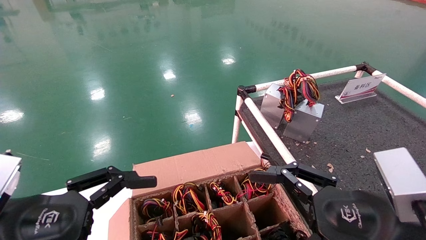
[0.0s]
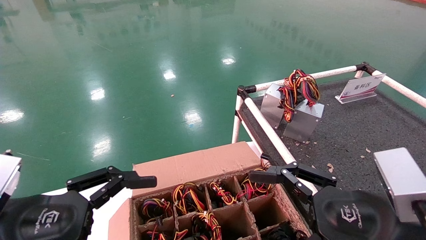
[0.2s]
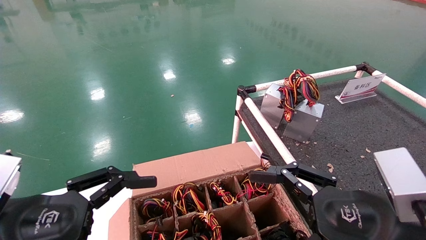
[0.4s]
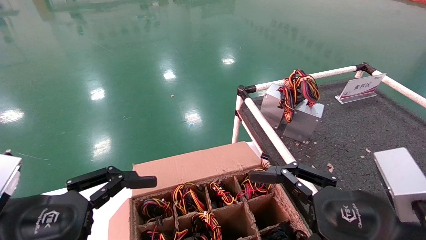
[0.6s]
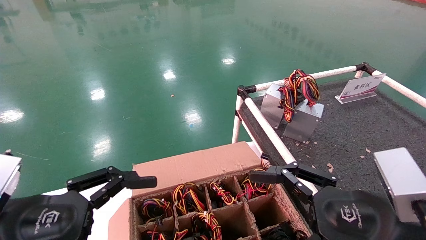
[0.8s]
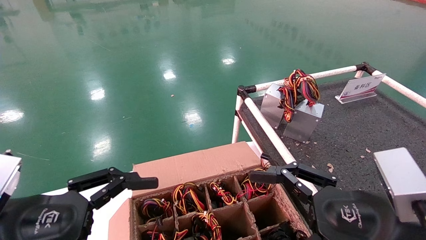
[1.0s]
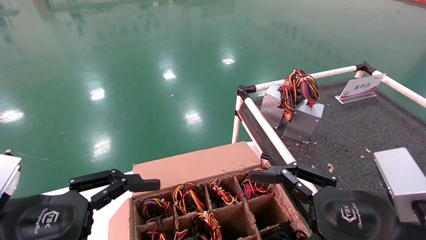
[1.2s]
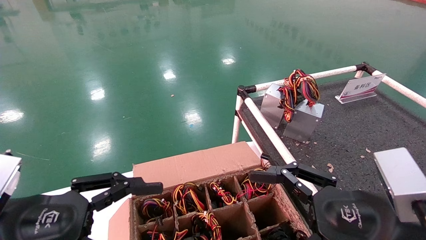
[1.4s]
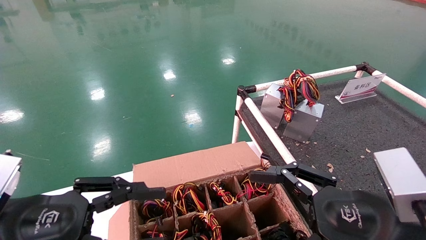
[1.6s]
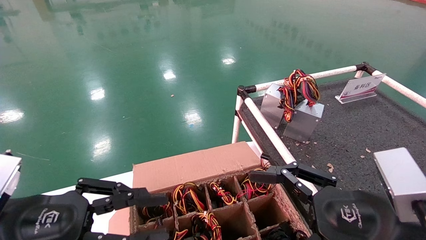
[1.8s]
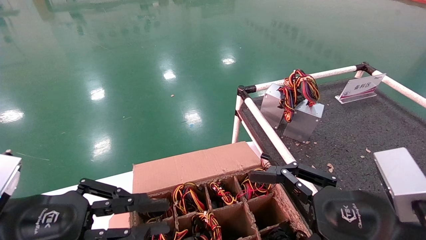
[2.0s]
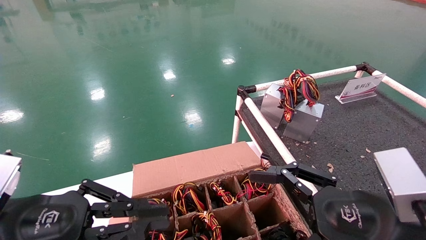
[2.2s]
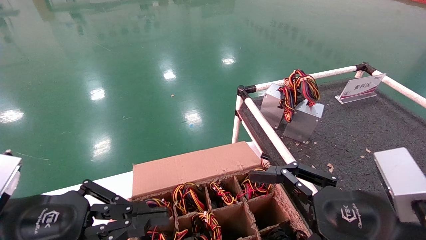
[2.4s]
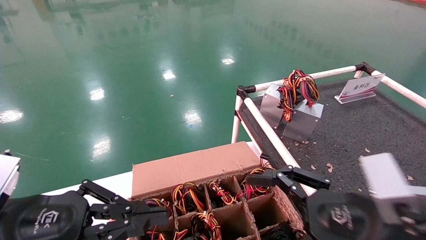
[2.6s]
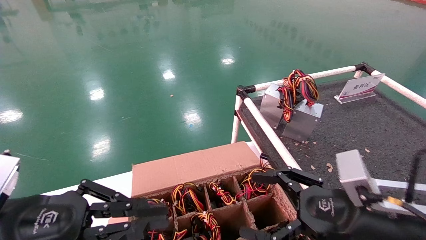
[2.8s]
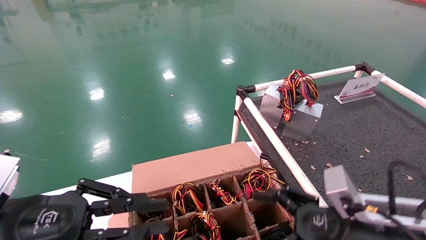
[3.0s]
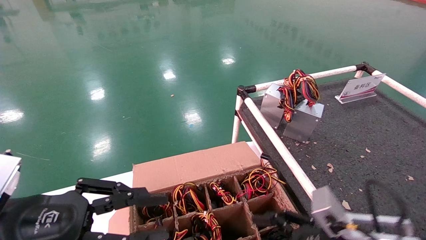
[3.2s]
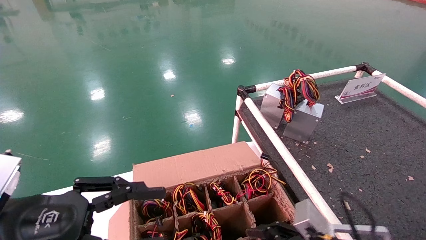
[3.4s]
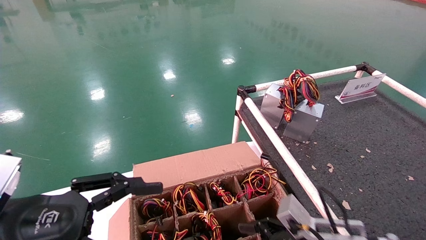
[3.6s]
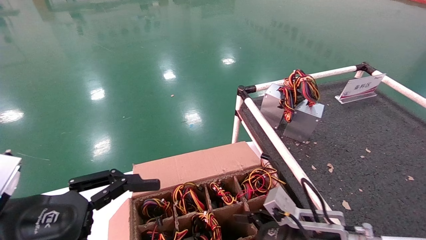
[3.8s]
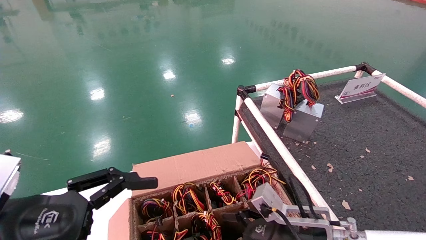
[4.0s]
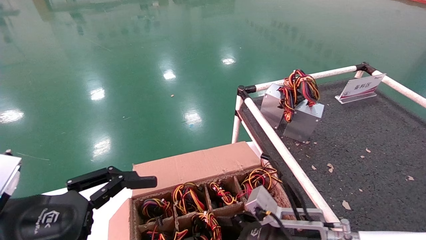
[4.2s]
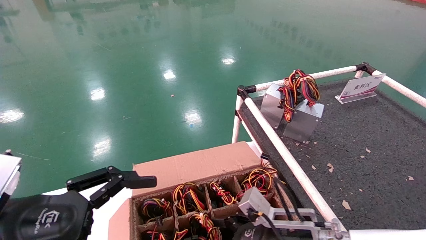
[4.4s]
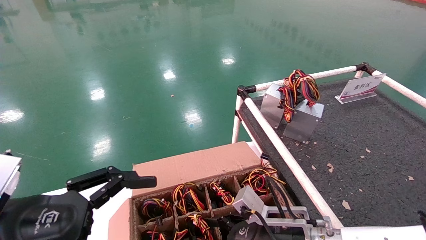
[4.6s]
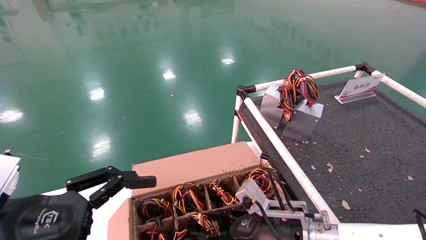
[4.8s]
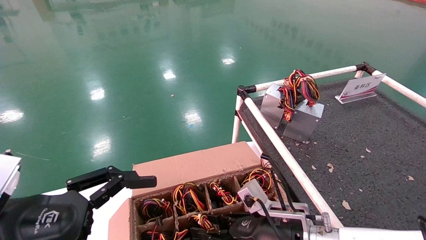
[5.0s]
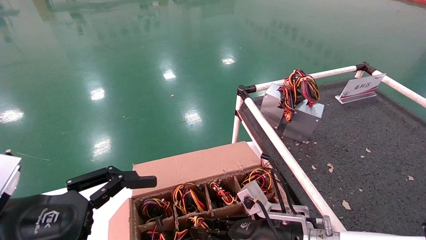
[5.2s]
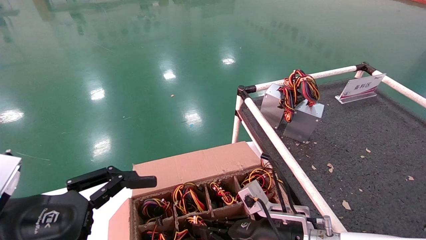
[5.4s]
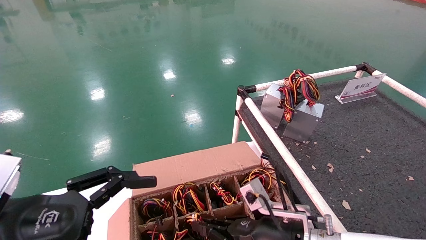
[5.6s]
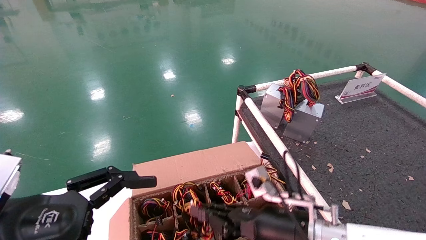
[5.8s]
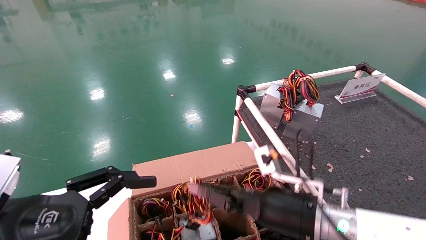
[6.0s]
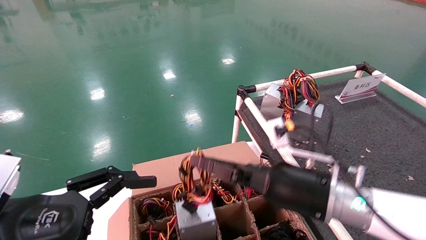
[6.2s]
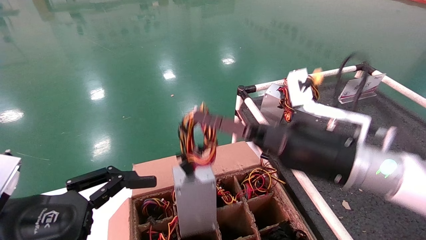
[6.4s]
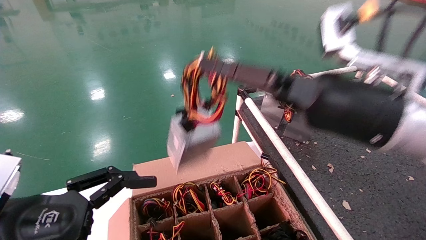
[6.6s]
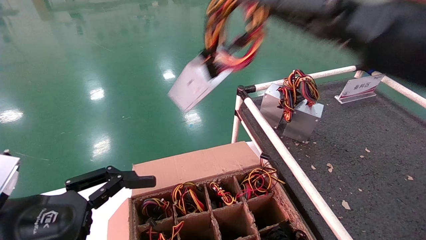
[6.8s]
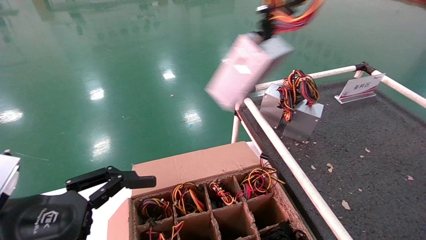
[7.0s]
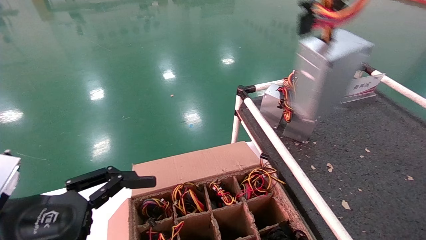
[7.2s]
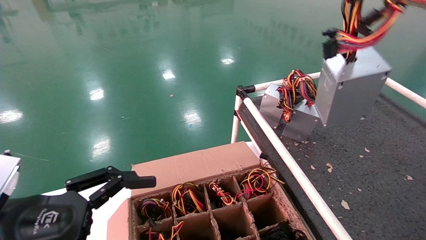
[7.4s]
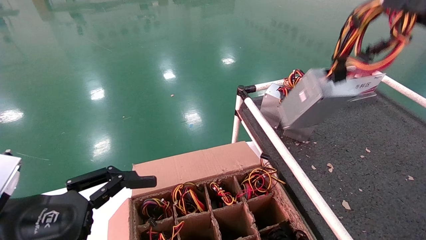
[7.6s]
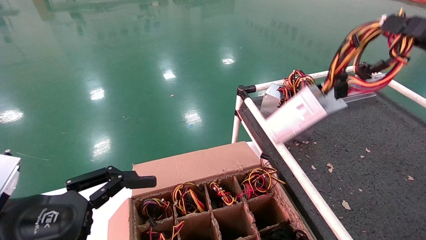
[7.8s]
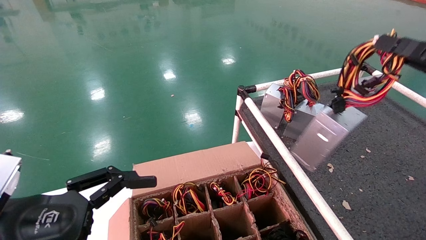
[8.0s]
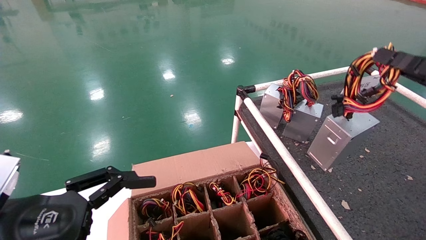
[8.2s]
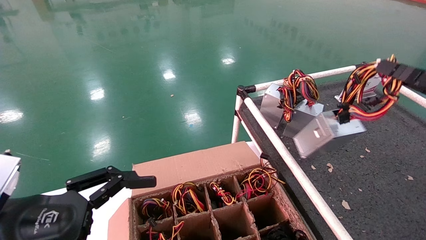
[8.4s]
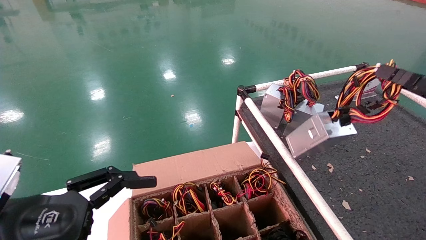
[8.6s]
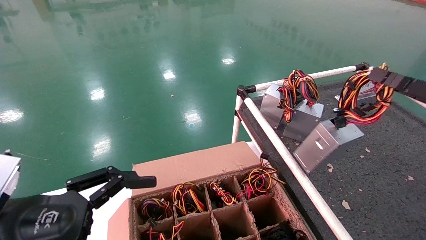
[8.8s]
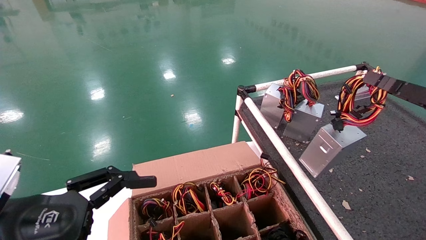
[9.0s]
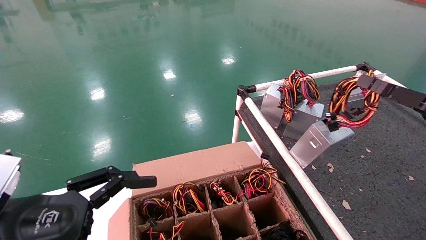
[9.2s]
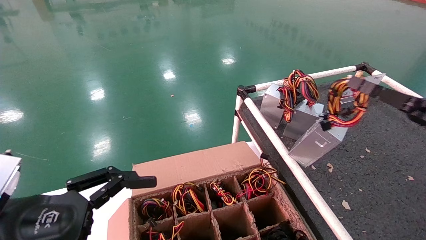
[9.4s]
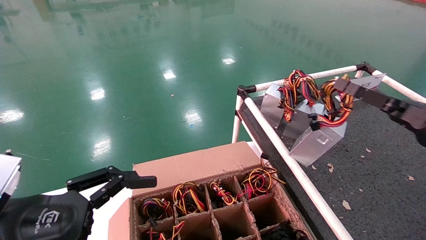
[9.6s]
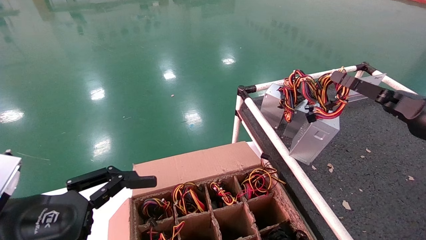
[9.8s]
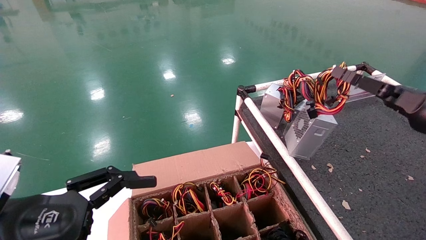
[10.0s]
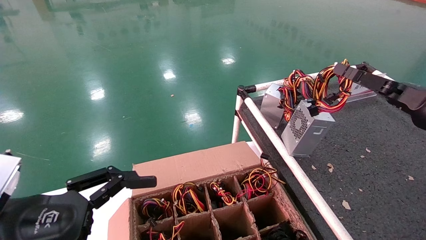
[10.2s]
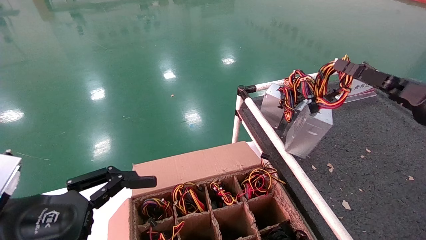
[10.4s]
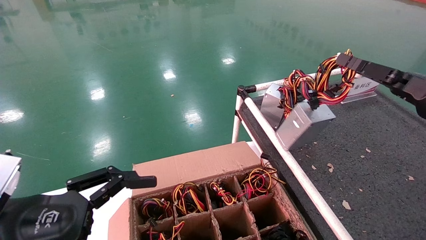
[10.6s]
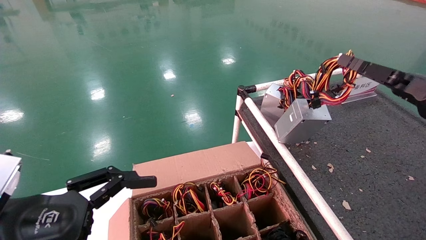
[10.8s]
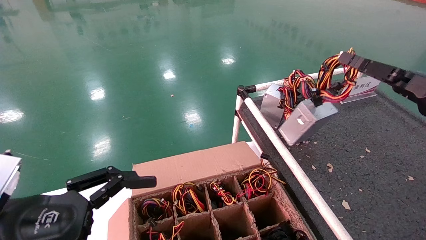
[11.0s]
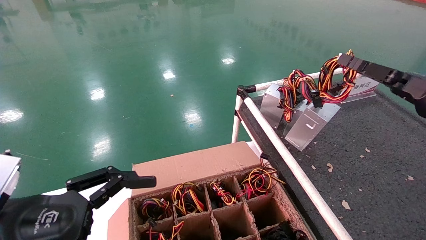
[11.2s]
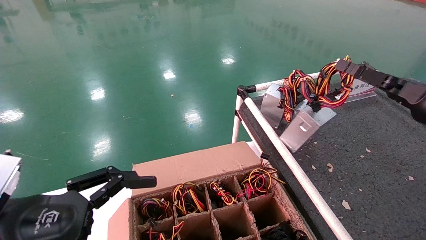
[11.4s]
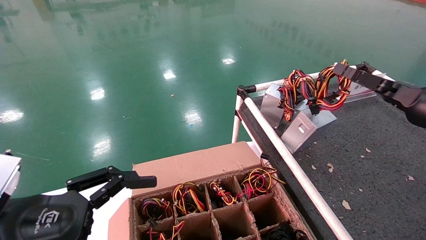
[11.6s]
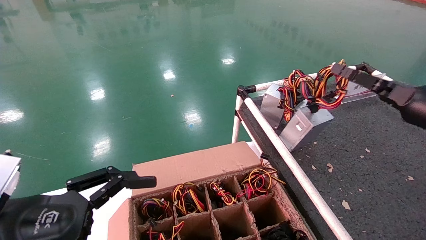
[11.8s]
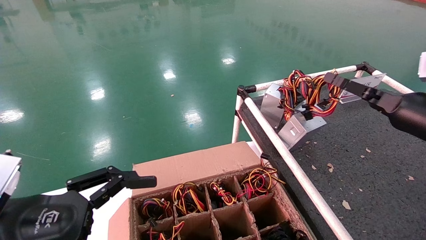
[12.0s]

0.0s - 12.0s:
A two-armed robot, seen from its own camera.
Step, 3.0s - 5.6s: Grab and lift the power supply from the large box.
0.0s - 1.6s: The left gripper closes.
1.6s - 3.0s: The right gripper moves downward, some 5 cm. The left gripper closes.
3.0s - 4.4s: The right gripper shifts about 15 cm to the left, forward and downward, while the left gripper opens its fingers.
4.4s - 6.0s: The right gripper is displaced upward by some 5 cm, and closes up.
6.0s - 7.6s: The right gripper heads to the right, upward and backward, covering about 35 cm.
7.6s - 9.0s: The right gripper shifts roughly 10 cm downward and forward.
9.0s - 10.4s: The right gripper shifts some 5 cm forward.
10.4s - 12.0s: The right gripper moves forward, approximately 5 cm.

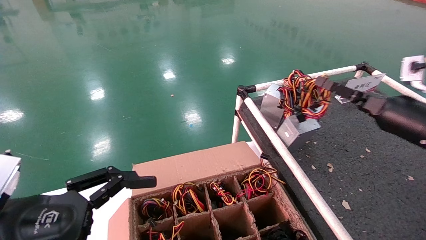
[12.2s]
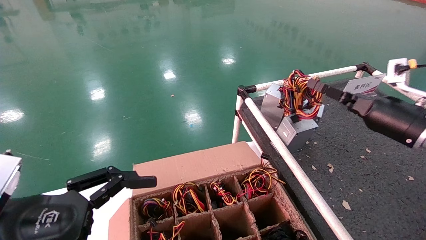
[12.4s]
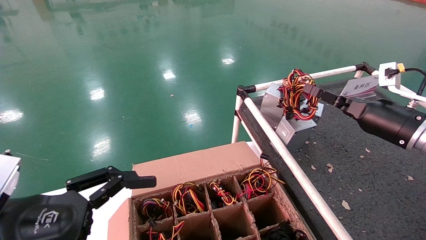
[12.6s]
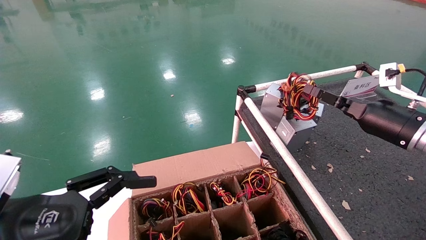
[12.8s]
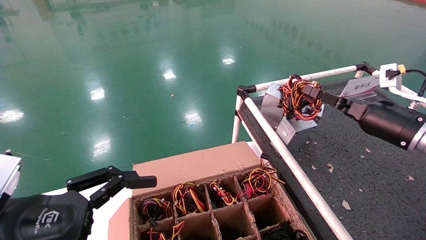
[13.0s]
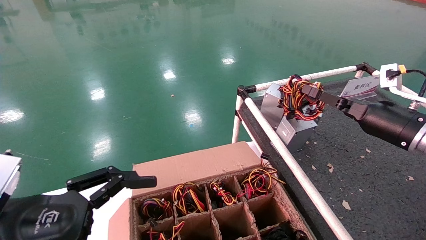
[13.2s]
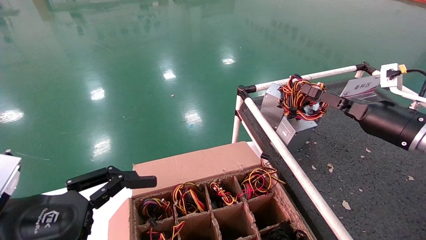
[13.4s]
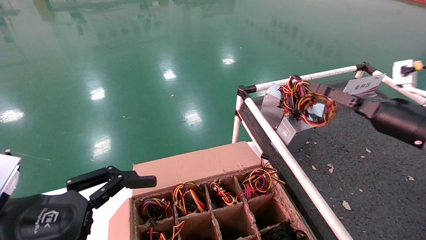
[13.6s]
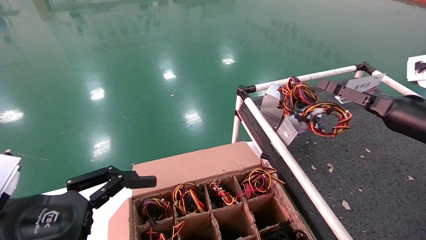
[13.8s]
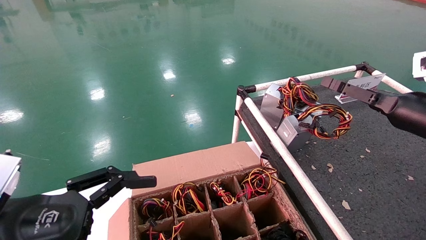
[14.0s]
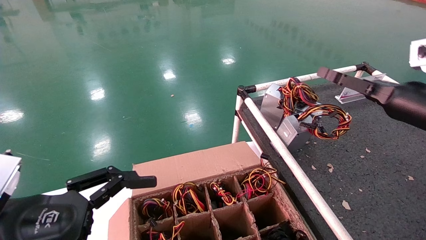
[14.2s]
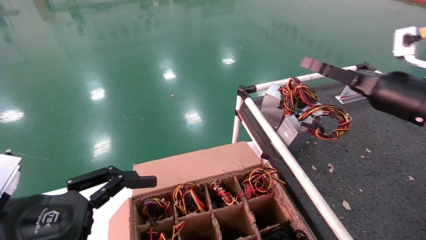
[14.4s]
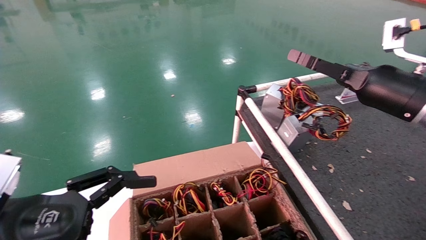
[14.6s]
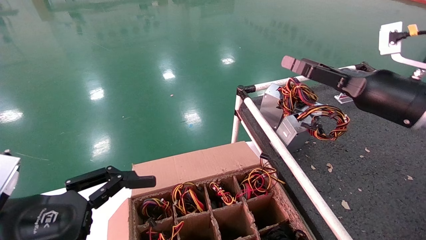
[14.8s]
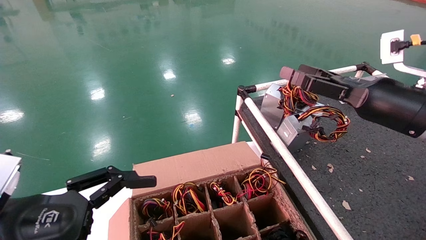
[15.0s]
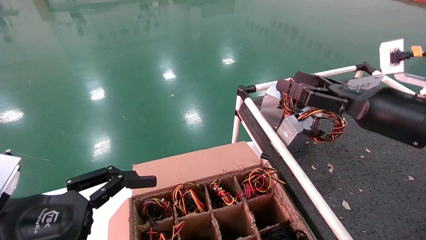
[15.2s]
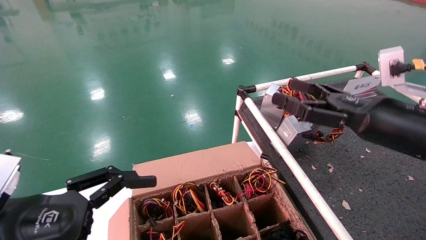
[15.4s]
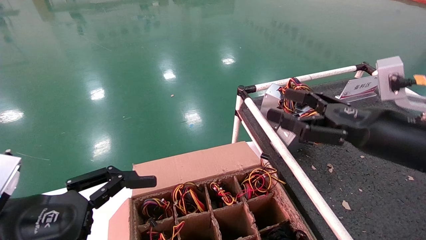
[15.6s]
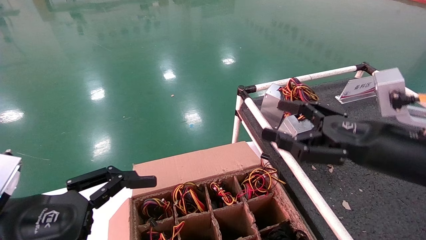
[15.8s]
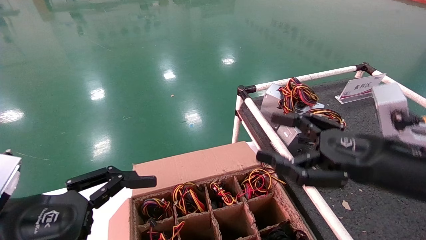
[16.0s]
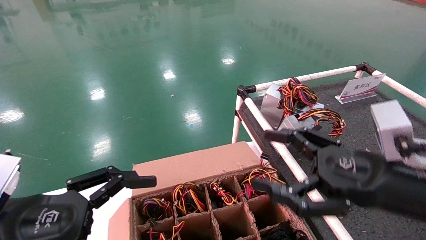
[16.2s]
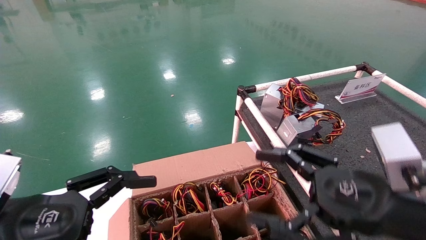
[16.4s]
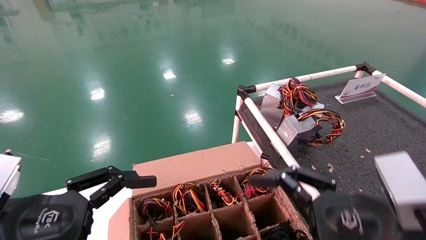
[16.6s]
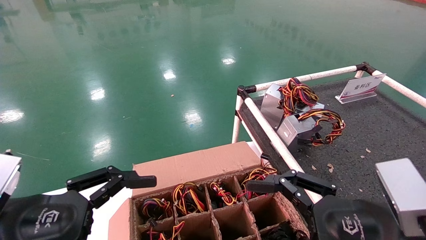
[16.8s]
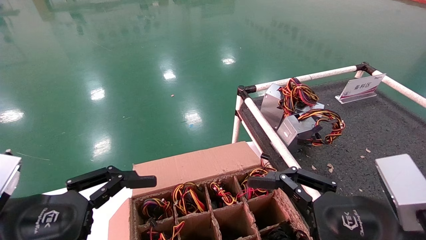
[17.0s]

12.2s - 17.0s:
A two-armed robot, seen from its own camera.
12.2s - 13.8s: The right gripper opens.
13.8s - 15.4s: The right gripper travels to the left and backward by approximately 10 cm.
15.4s - 17.0s: The right gripper heads backward, downward and to the left, covering some 15 cm.
